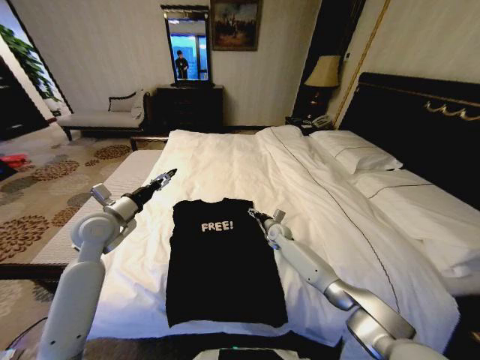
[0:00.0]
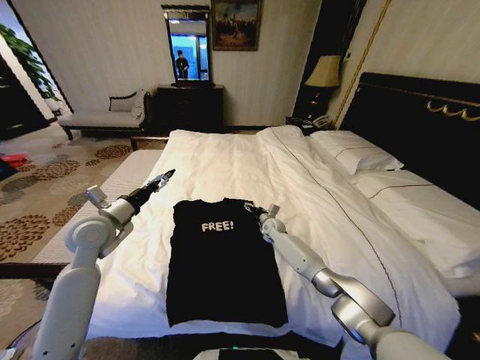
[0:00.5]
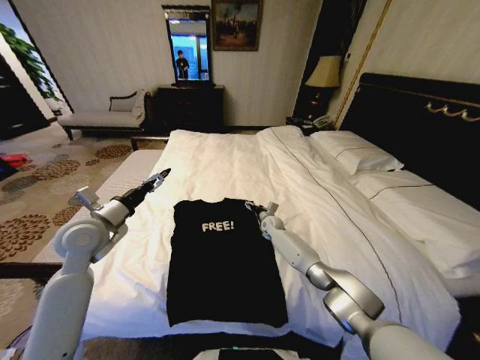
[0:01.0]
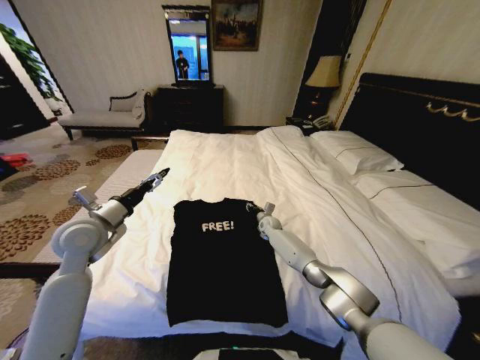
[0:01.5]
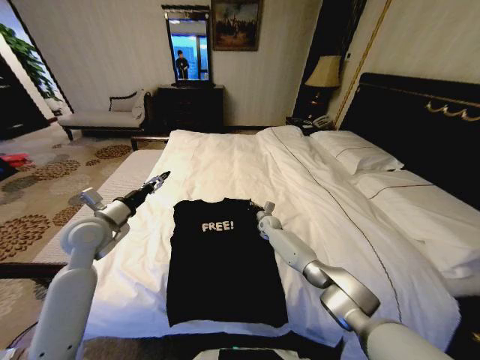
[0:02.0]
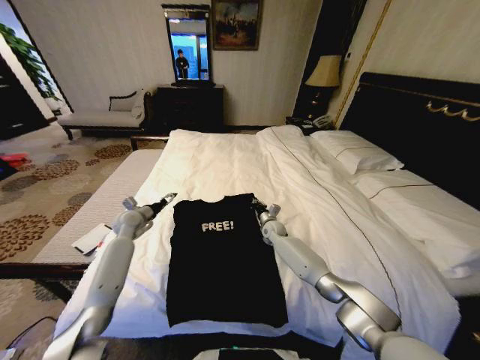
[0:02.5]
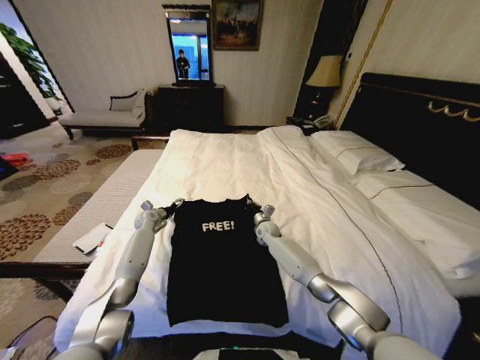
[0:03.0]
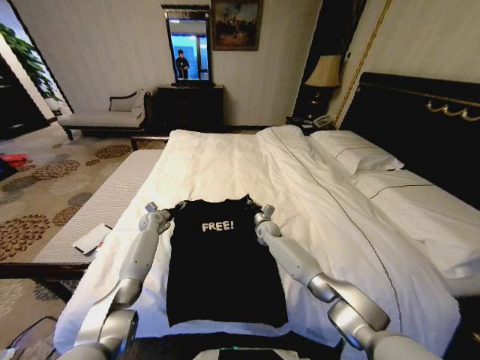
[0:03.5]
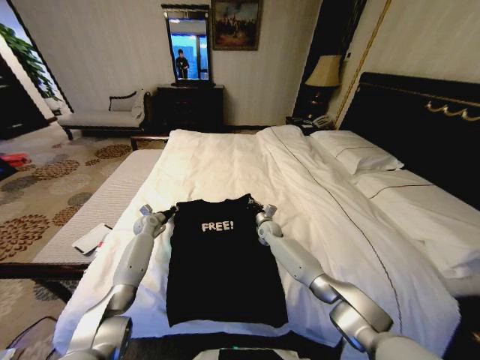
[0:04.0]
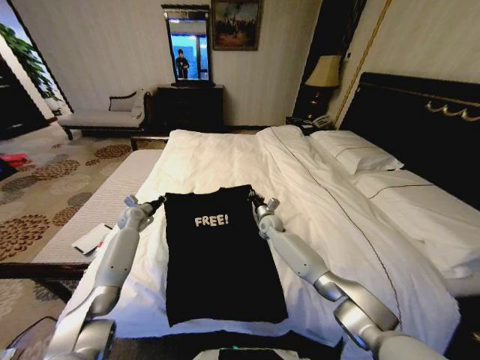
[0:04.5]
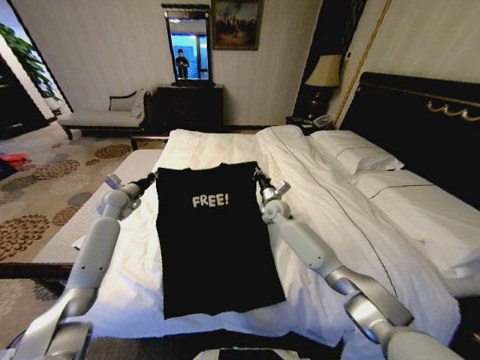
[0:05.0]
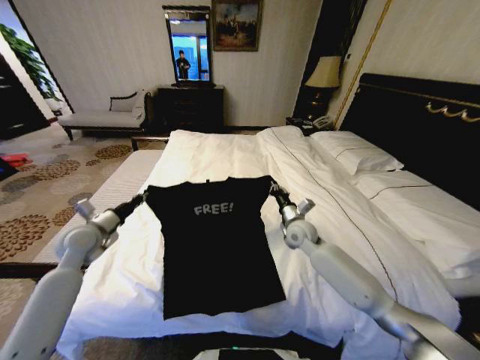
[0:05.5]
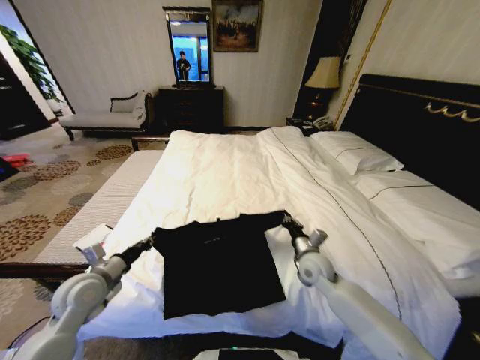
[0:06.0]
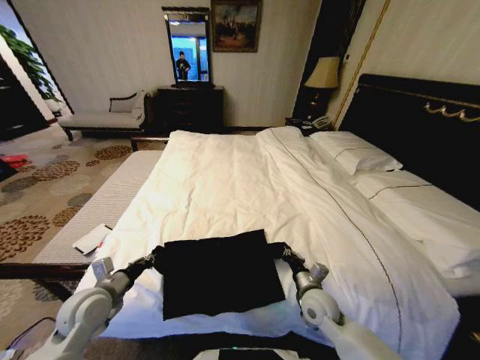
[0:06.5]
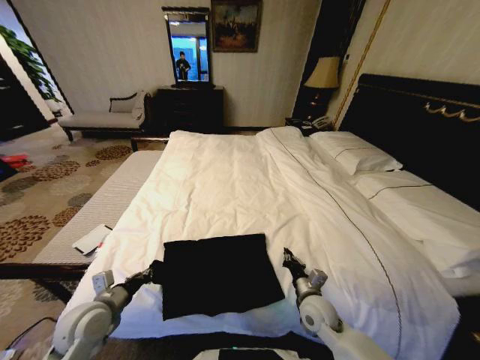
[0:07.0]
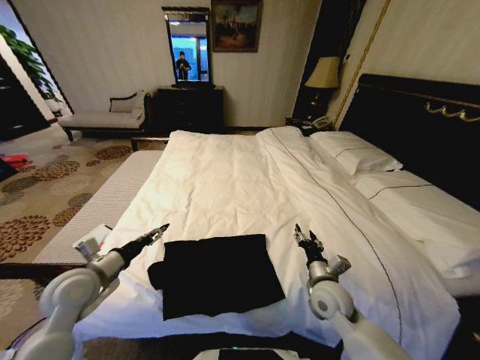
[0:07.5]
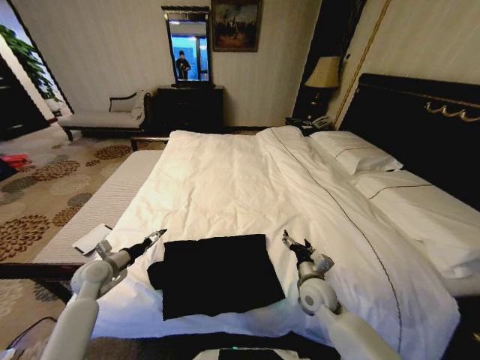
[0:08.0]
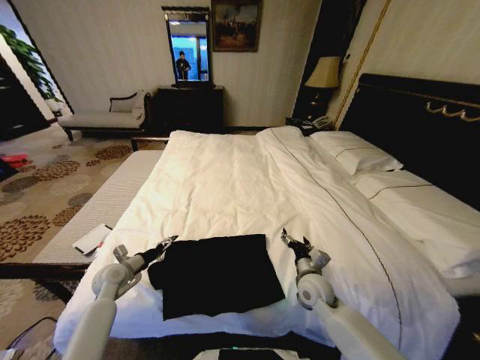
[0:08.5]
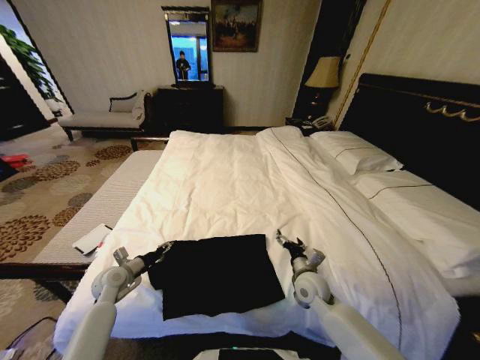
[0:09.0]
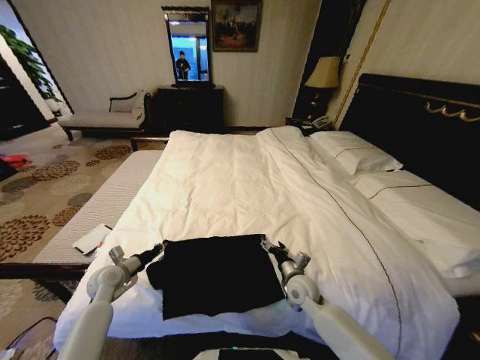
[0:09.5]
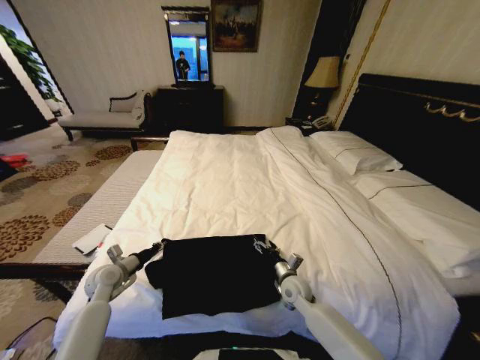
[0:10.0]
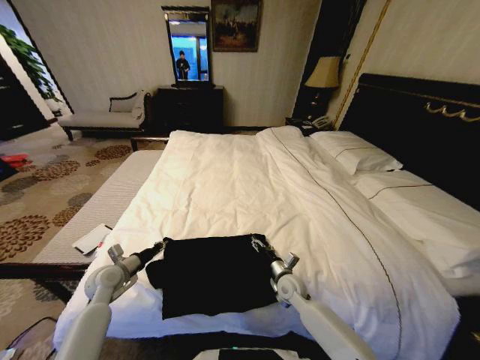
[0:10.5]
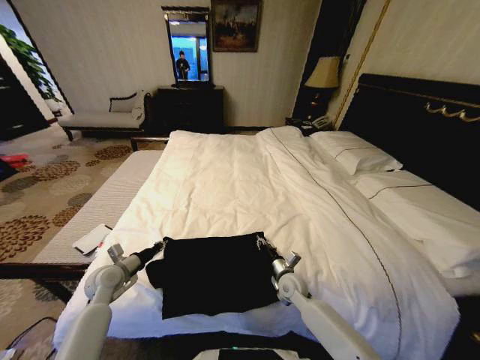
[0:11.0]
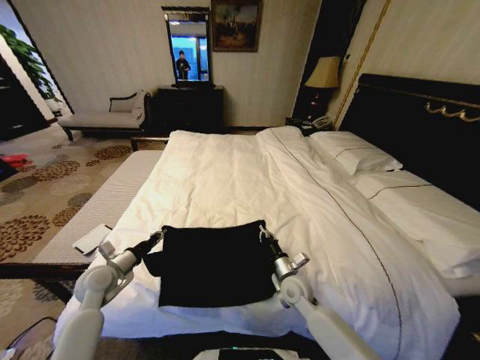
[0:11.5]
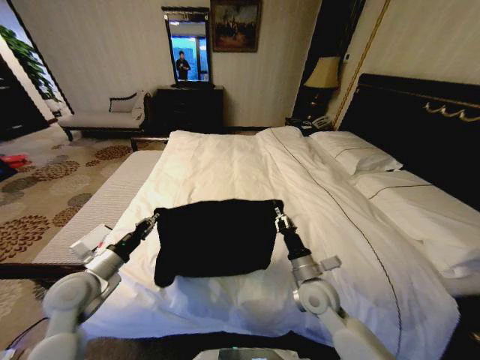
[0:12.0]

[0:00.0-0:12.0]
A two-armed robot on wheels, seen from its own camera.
Task of the whole recording: Fold the clothes on the bed.
0:00.0 to 0:02.0: The right gripper is displaced forward by roughly 5 cm, and closes.
0:02.0 to 0:04.0: The left gripper shifts about 30 cm downward and forward, and closes up.
0:04.0 to 0:06.0: The left gripper moves backward, roughly 30 cm. The right gripper moves backward and to the right, some 20 cm.
0:06.0 to 0:08.0: The left gripper moves forward, downward and to the left, roughly 10 cm, and opens. Meanwhile the right gripper heads backward, covering some 5 cm, and opens its fingers.
0:08.0 to 0:10.0: The left gripper closes up; the right gripper travels downward by roughly 5 cm.
0:10.0 to 0:12.0: Both grippers travel together upward and backward, about 15 cm. The right gripper closes its fingers.

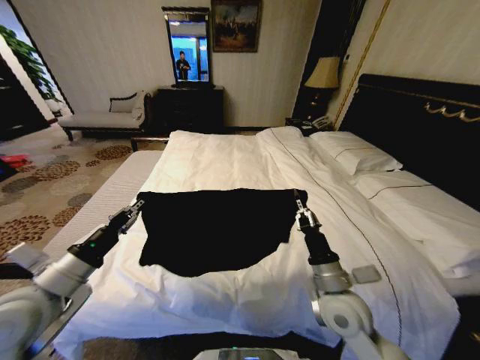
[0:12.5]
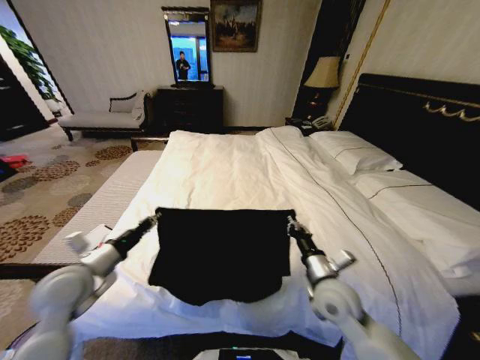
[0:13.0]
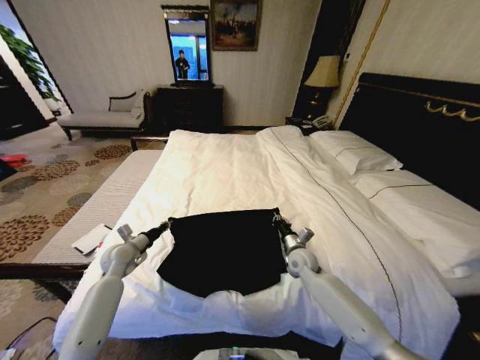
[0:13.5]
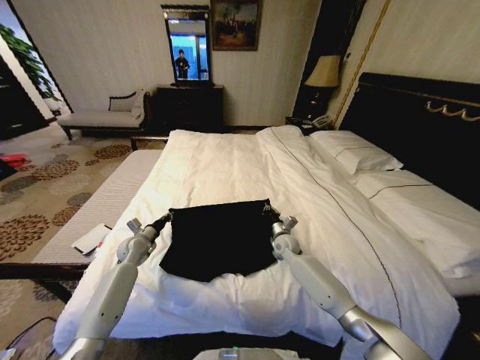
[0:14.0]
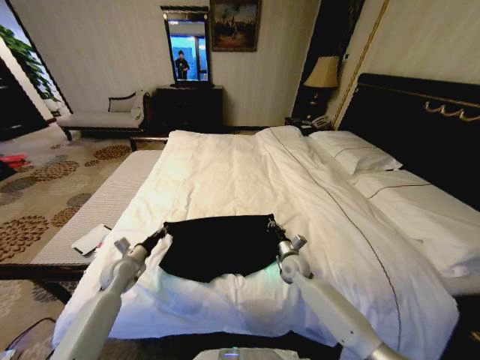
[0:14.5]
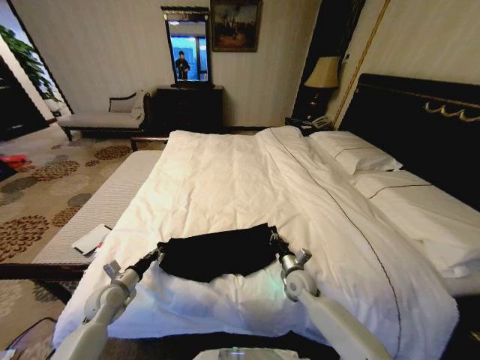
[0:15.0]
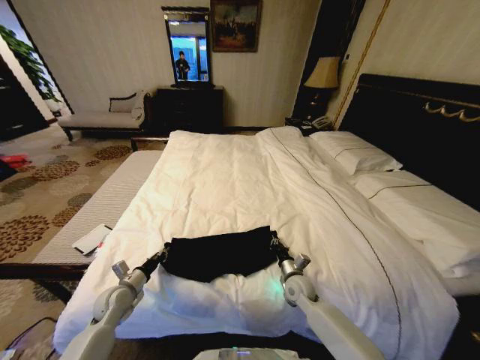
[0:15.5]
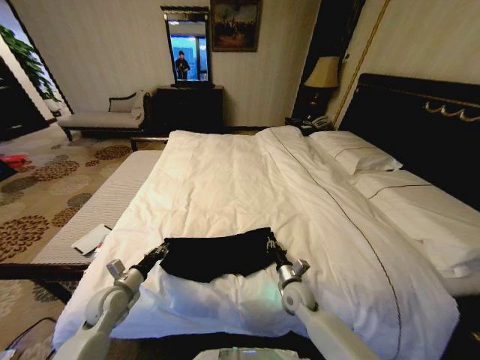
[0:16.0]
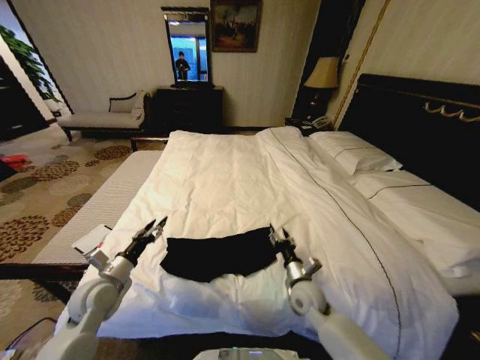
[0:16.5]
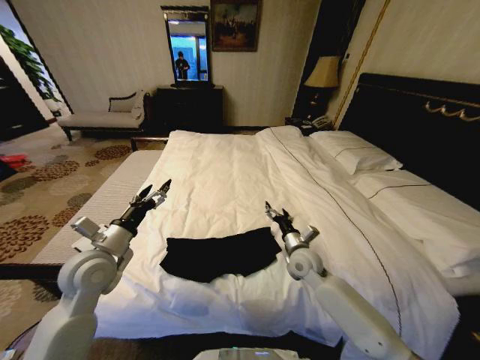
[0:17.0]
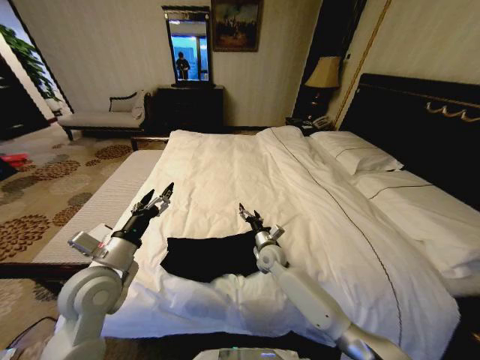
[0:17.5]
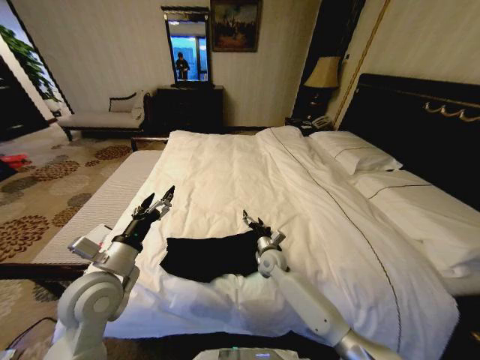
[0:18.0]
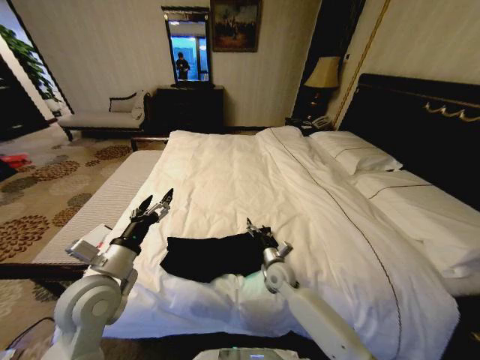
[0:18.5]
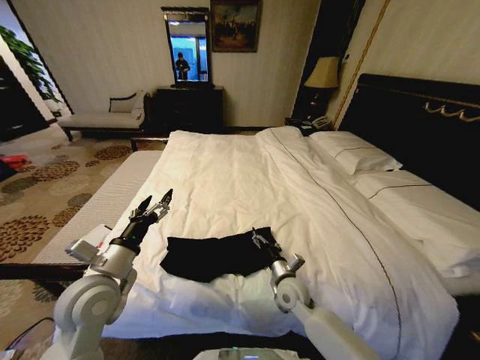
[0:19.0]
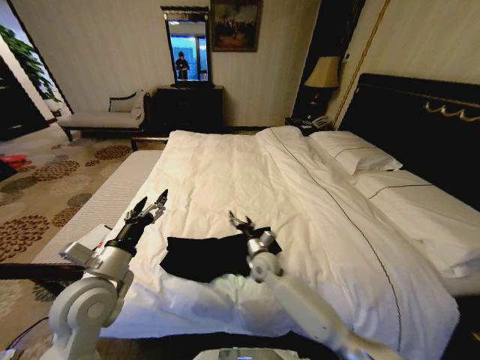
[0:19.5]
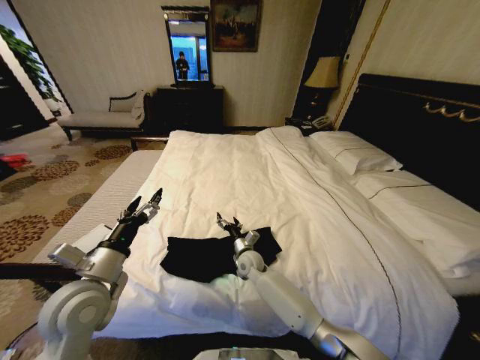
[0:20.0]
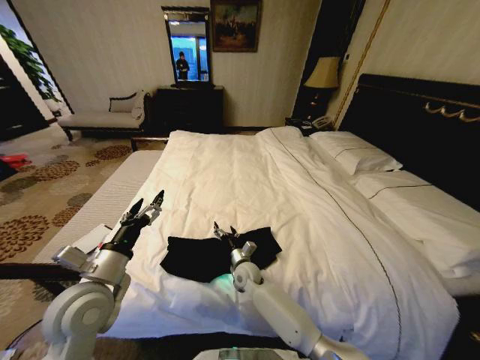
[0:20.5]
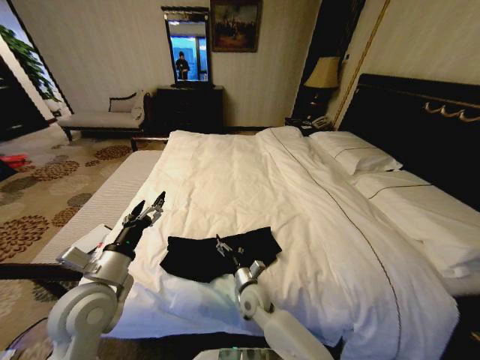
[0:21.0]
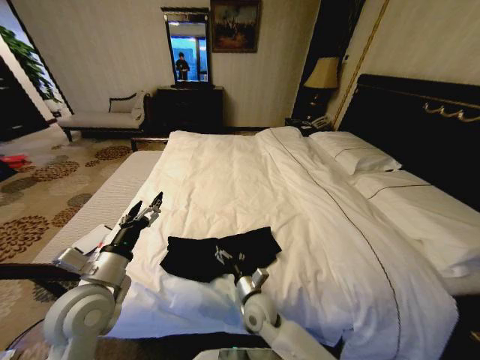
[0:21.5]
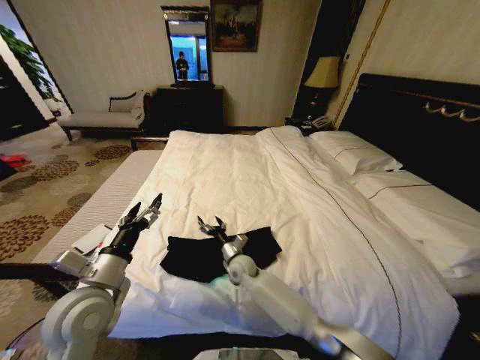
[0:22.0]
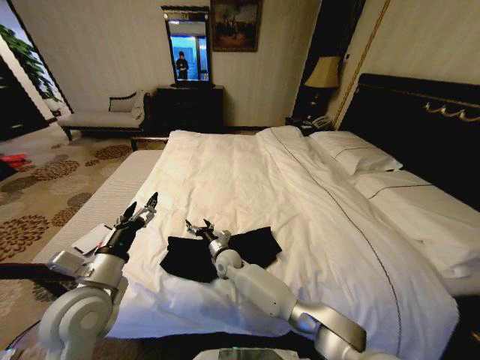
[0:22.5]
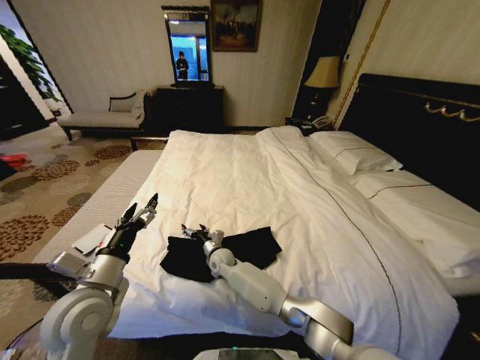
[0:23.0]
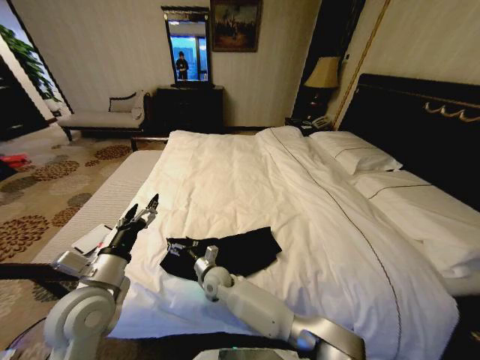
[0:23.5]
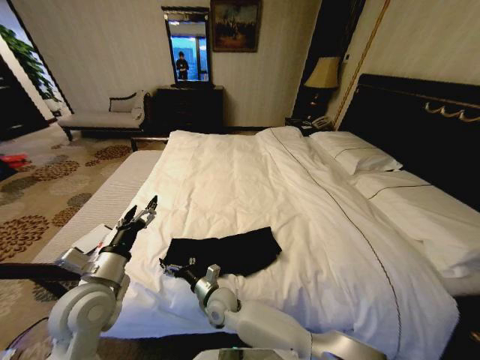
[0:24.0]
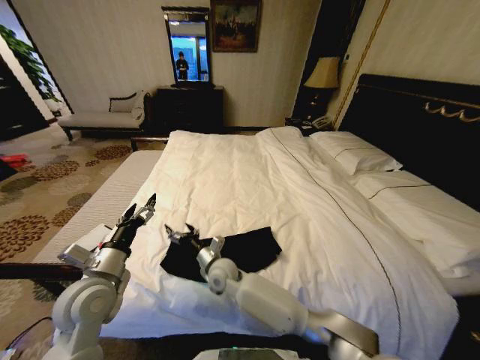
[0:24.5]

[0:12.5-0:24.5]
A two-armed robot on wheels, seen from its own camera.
Task of the whole recording: Fold the clothes on the bed.
0:12.5 to 0:14.5: The left gripper goes some 25 cm downward and forward. The right gripper goes roughly 25 cm forward and downward.
0:14.5 to 0:16.5: The right gripper goes some 10 cm backward, and opens its fingers. The left gripper shifts roughly 10 cm backward and upward, and opens up.
0:16.5 to 0:18.5: The left gripper heads upward and to the right, covering roughly 15 cm, and opens up. Meanwhile the right gripper heads forward and to the left, covering some 10 cm, and opens up.
0:18.5 to 0:20.5: The right gripper goes approximately 10 cm to the left.
0:20.5 to 0:22.5: The right gripper is displaced to the left by roughly 5 cm, and moves about 10 cm backward and comes back.
0:22.5 to 0:24.5: The right gripper is displaced backward and upward by approximately 10 cm.

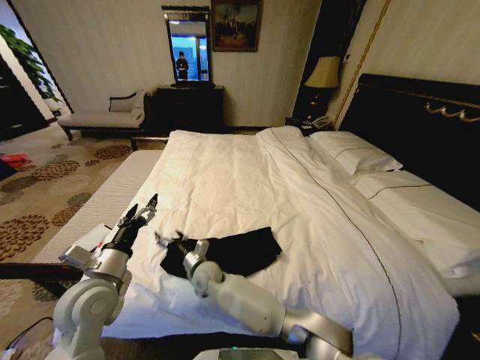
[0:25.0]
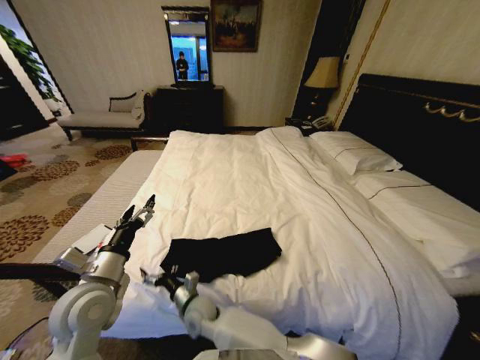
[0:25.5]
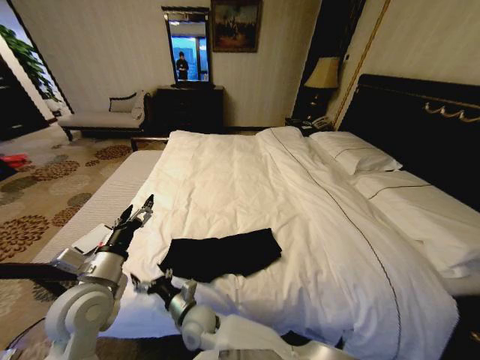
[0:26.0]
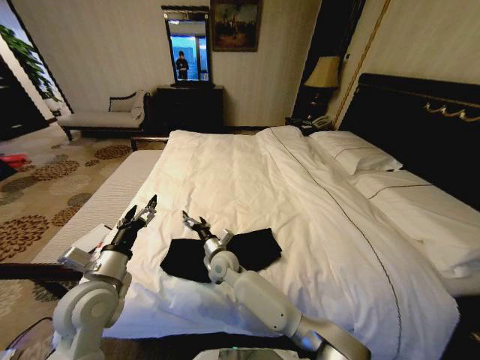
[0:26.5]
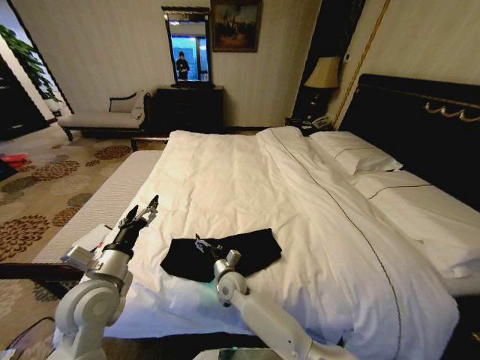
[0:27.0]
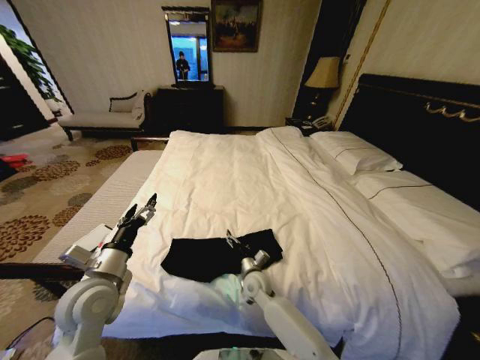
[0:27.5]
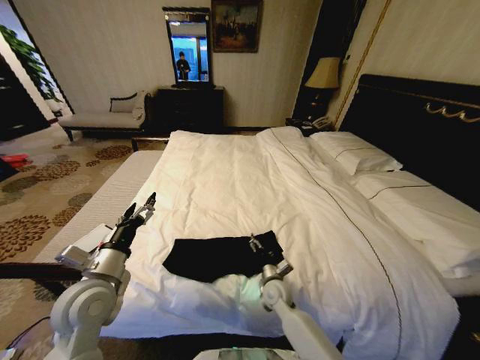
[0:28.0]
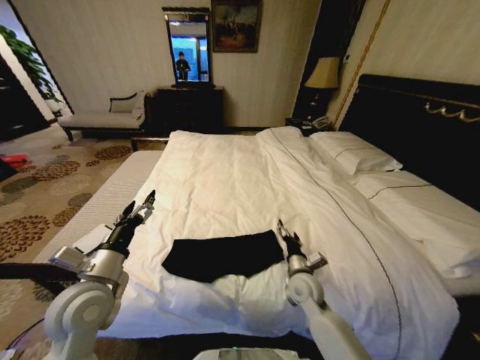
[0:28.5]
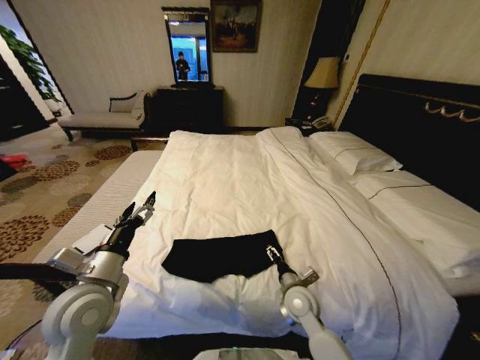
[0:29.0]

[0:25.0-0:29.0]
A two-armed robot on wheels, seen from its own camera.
Task of the whole recording: Fold the clothes on the bed.
0:25.0 to 0:27.0: The right gripper goes forward and backward, approximately 15 cm each way, reversing 2 times.
0:27.0 to 0:29.0: The right gripper heads to the right, covering approximately 20 cm.
